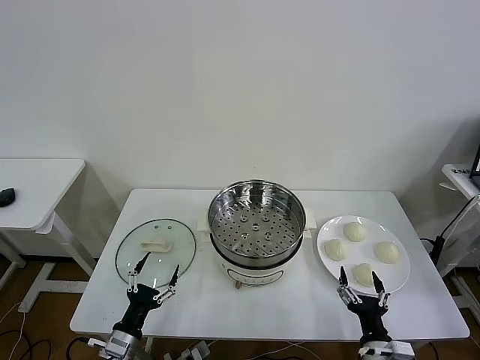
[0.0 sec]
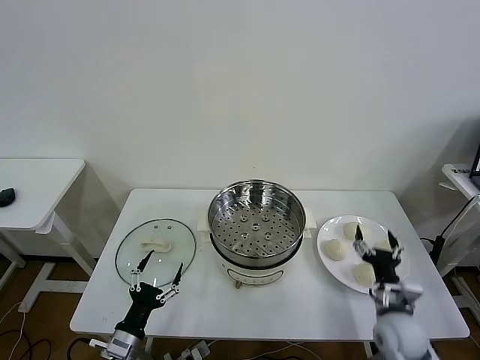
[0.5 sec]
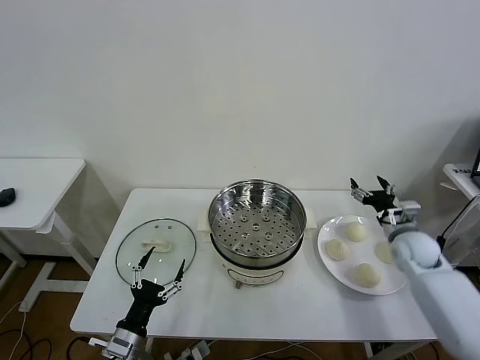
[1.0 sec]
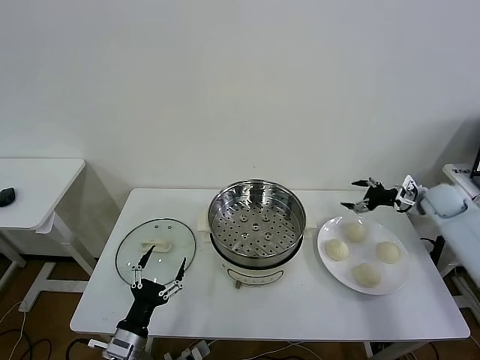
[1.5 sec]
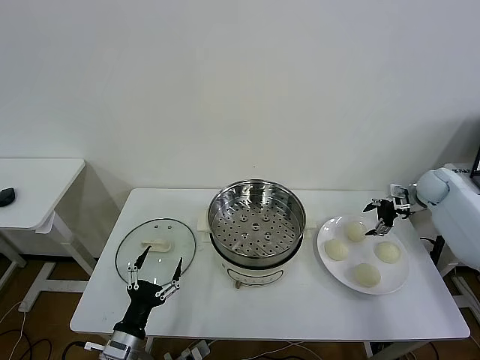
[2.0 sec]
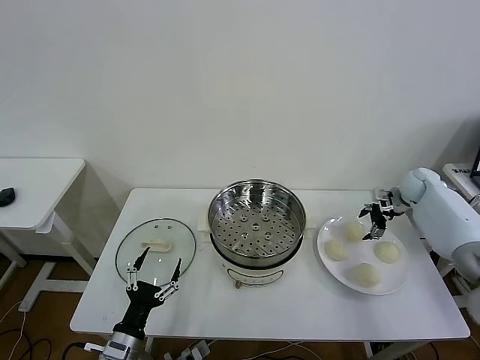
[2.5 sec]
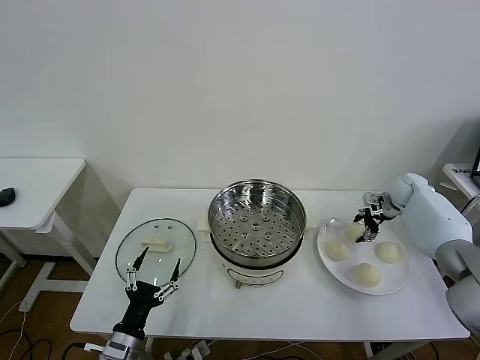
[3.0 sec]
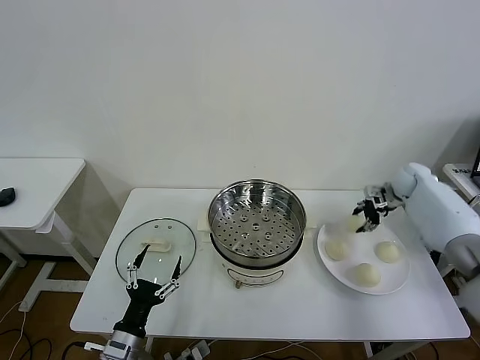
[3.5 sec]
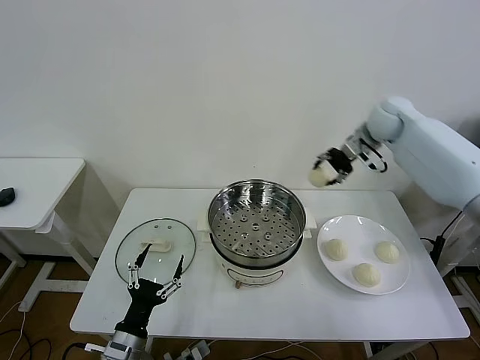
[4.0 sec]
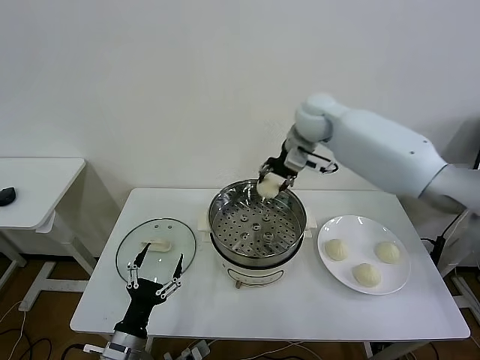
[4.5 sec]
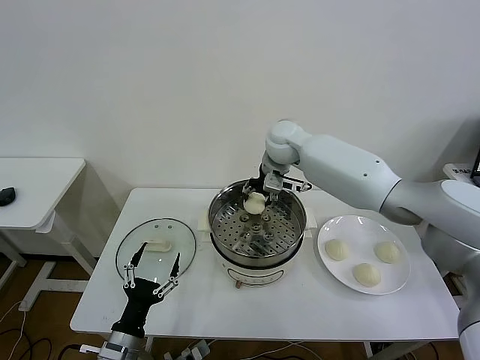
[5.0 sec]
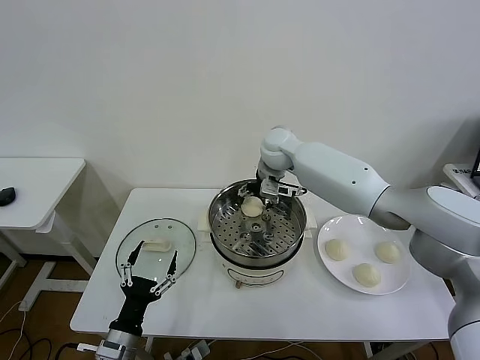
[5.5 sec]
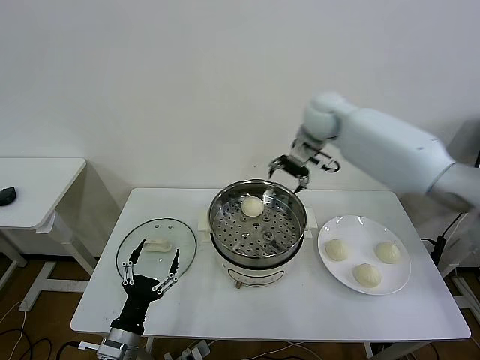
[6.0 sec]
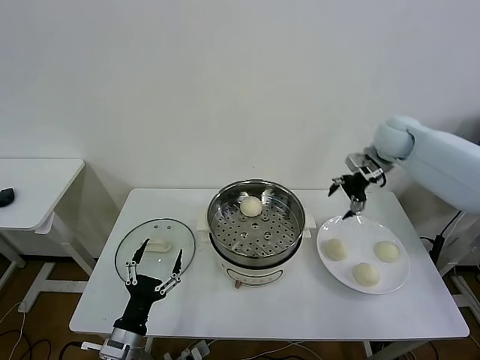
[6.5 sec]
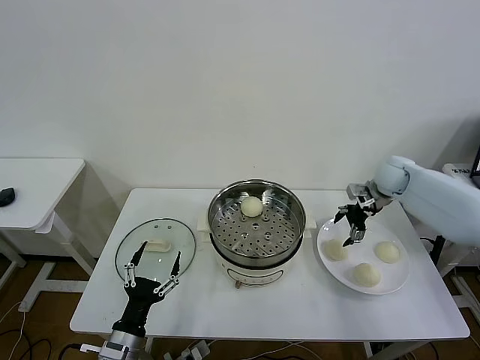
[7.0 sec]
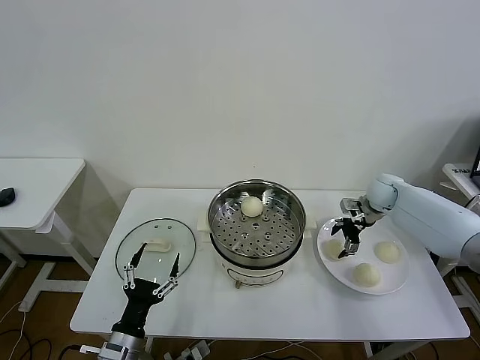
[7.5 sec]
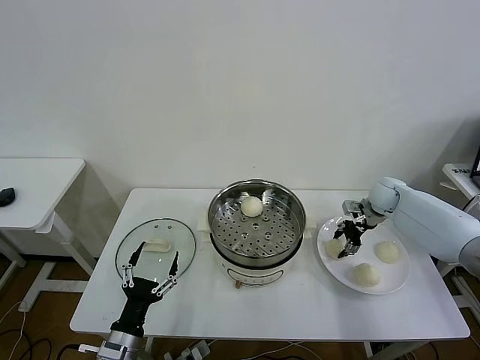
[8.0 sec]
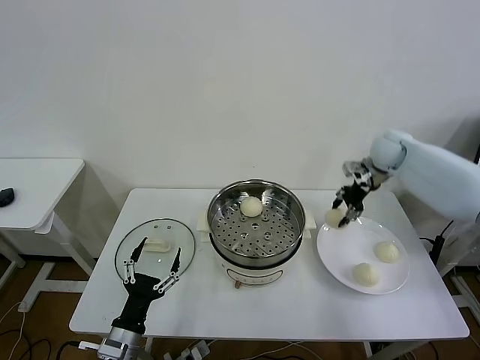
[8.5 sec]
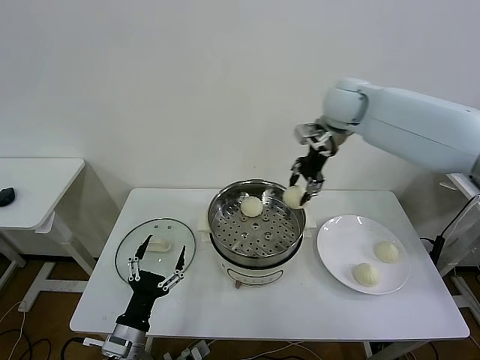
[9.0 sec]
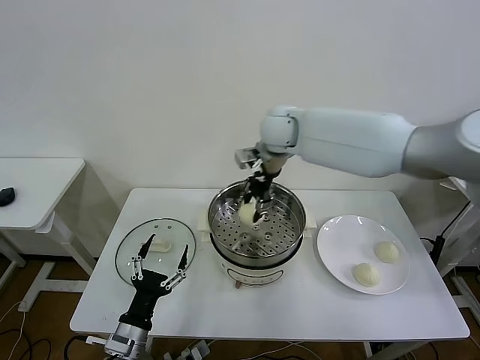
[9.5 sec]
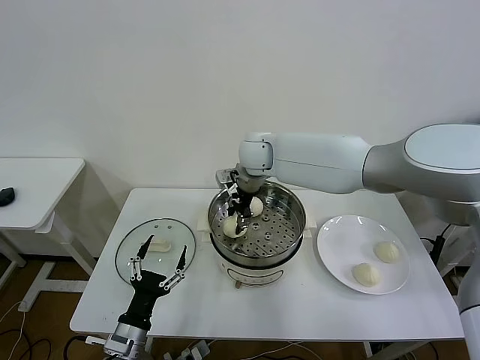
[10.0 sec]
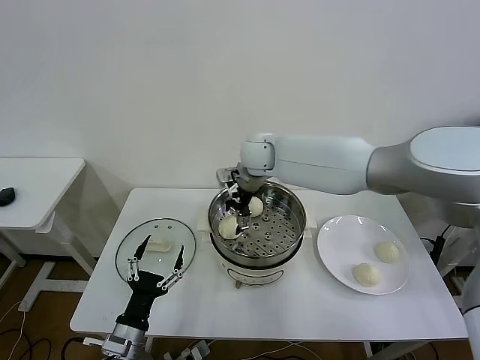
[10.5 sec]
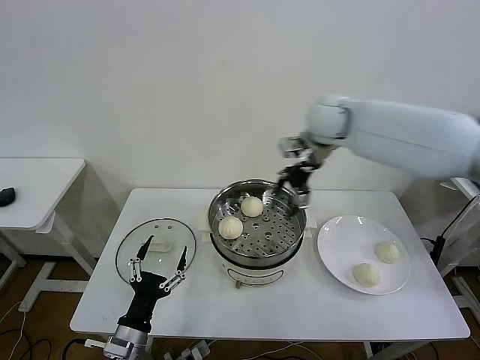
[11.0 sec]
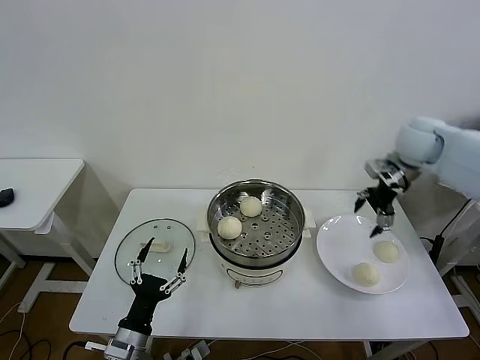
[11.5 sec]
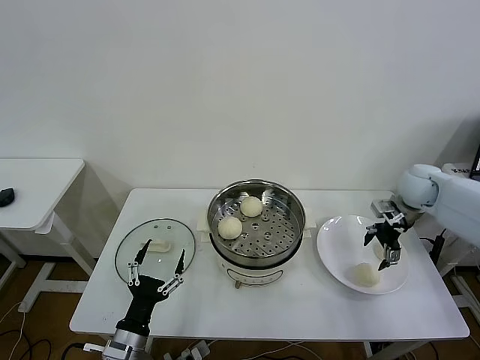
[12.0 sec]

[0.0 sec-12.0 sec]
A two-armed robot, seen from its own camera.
Task of the whole recording: take steamed baozi put them in steamer then cover it.
Step, 0.0 sec to 3.0 sec: Grasp the baozi in the plate with right gripper.
Step, 3.5 sec to 5.5 sec: Place the baozi on the steamer with right gripper.
Step, 6.0 sec to 8.0 sec: Grasp the baozi in the plate with right gripper.
Step, 8.5 sec to 10.0 sec: Place the baozi on the steamer with right gripper.
2.0 sec to 4.0 sec: The right gripper is displaced to the left and upward by about 30 cm, and closes its fingers.
4.0 sec to 6.0 sec: The right gripper goes some 10 cm to the left, and opens.
6.0 sec to 8.0 sec: The right gripper heads downward and to the right, covering some 30 cm, and closes up.
8.0 sec to 10.0 sec: The right gripper goes some 35 cm to the left.
10.0 sec to 12.0 sec: The right gripper heads to the right, covering about 40 cm, and opens up.

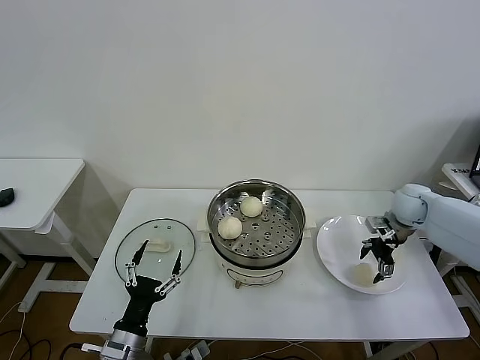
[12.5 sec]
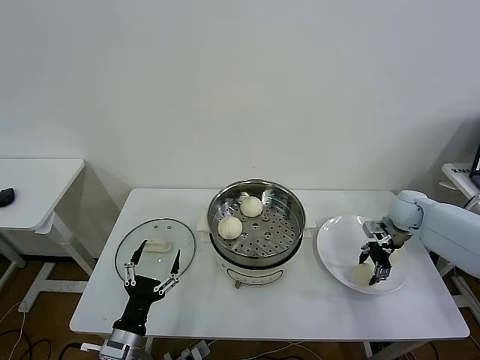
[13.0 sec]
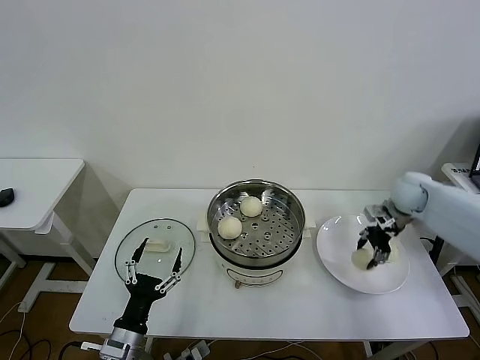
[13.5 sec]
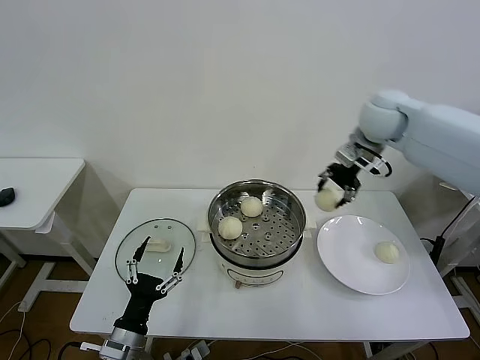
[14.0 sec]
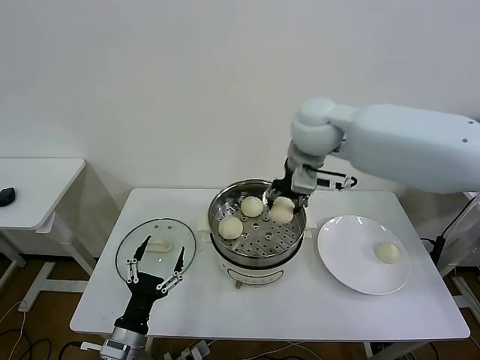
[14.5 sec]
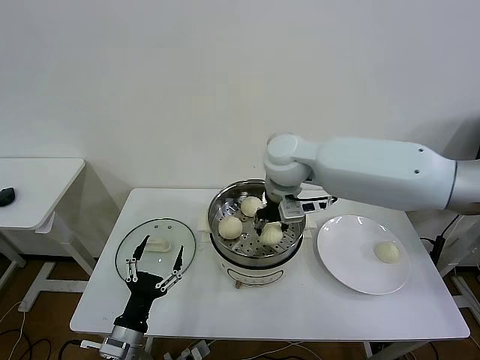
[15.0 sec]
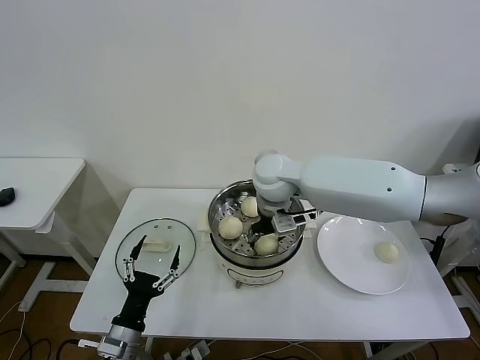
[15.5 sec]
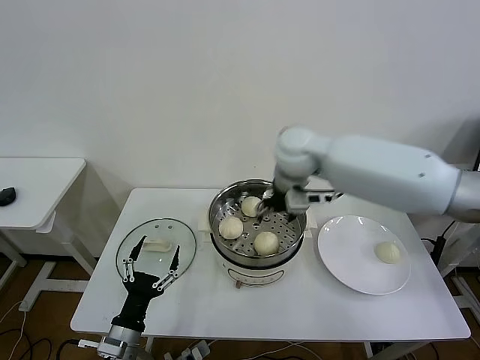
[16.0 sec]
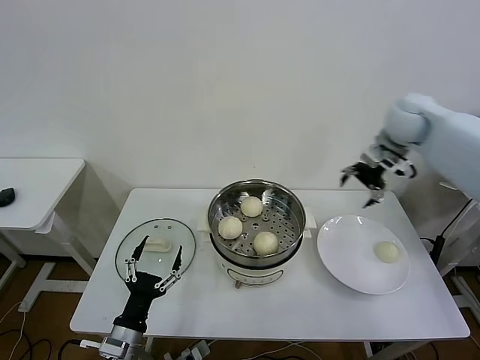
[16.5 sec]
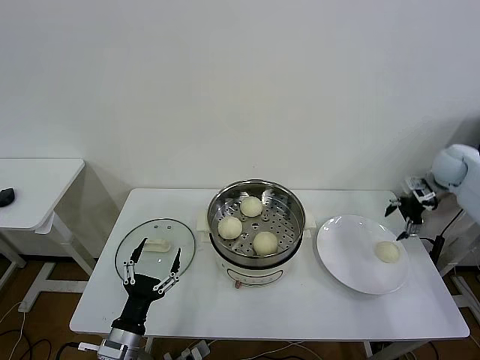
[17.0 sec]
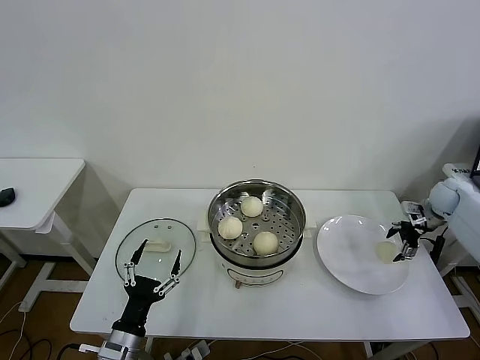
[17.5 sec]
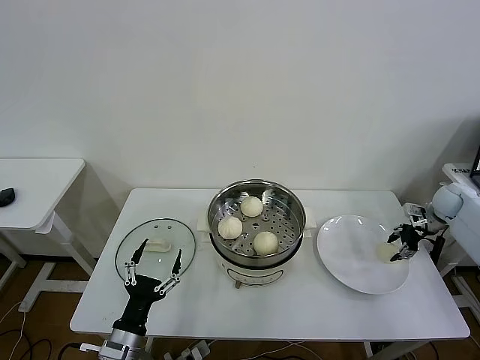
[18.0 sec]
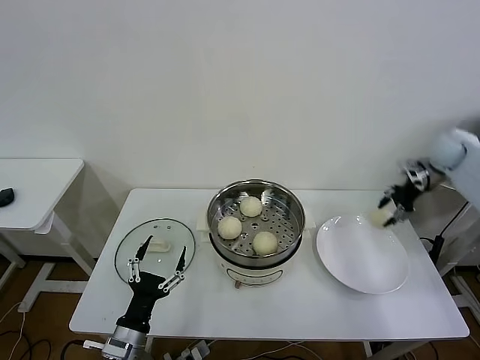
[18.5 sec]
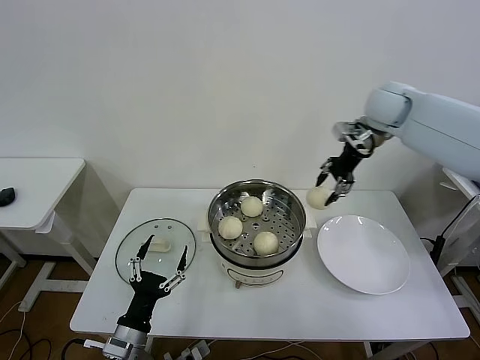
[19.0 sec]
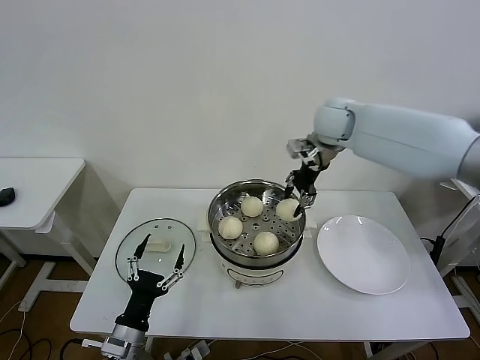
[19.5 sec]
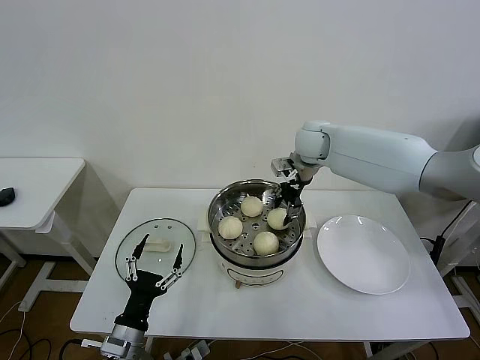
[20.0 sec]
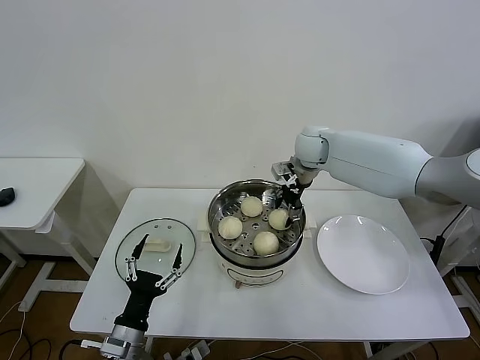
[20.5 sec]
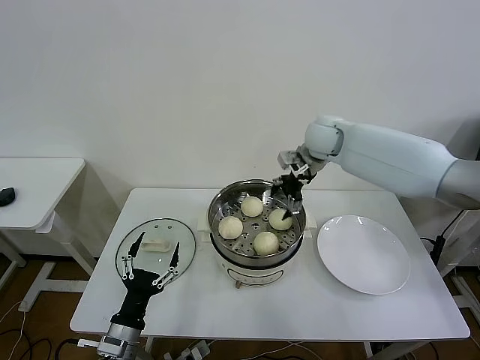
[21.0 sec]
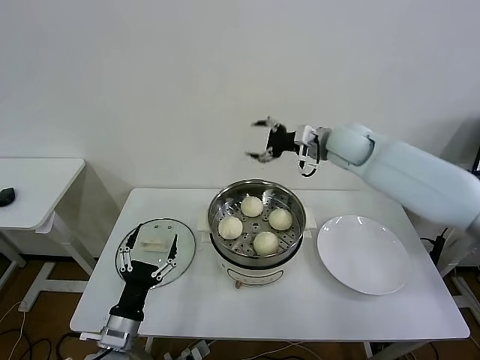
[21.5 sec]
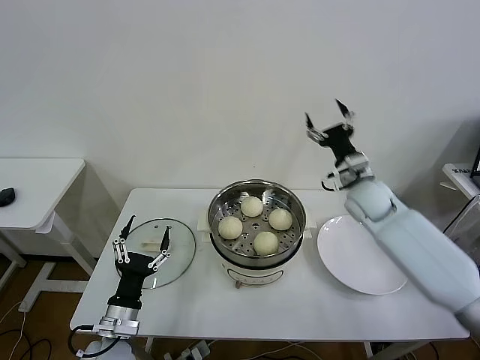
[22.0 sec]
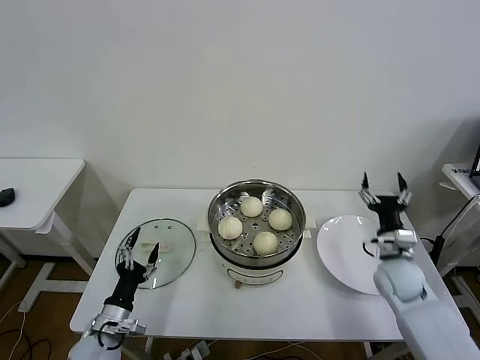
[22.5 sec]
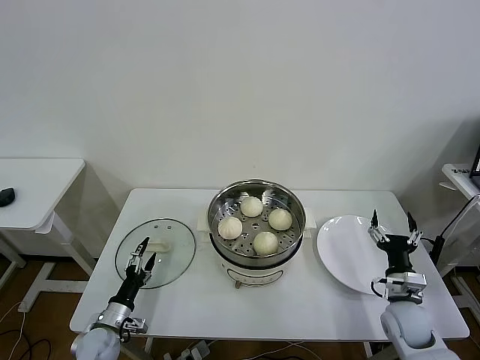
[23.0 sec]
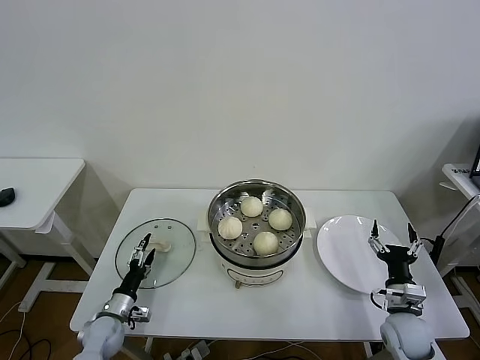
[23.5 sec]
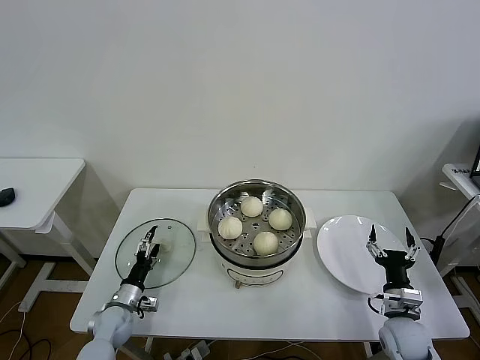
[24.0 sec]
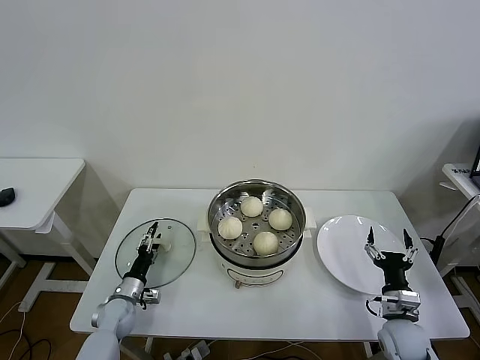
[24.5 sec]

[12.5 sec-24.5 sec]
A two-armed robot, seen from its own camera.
Task of the whole recording: take steamed baozi put them in steamer then cover it.
Step, 13.5 sec to 15.5 sec: Place the baozi on the steamer with right gripper.
Step, 16.0 sec to 18.0 sec: Grasp the baozi in the plate with right gripper.
Step, 18.5 sec to 20.5 sec: Place the baozi on the steamer with right gripper.
12.5 sec to 14.5 sec: The right gripper goes some 35 cm to the left and upward, and closes.
14.5 sec to 16.5 sec: The right gripper is displaced to the right by some 25 cm, and opens.
16.5 sec to 18.5 sec: The right gripper moves to the right and downward, roughly 15 cm, and closes its fingers.
18.5 sec to 20.5 sec: The right gripper travels to the left by approximately 30 cm.
20.5 sec to 22.5 sec: The right gripper travels backward, downward and to the right by some 35 cm, and opens up; the left gripper heads to the left and forward, covering roughly 10 cm.
22.5 sec to 24.5 sec: The right gripper shifts approximately 15 cm backward and downward. Meanwhile the left gripper moves forward and downward, approximately 15 cm.

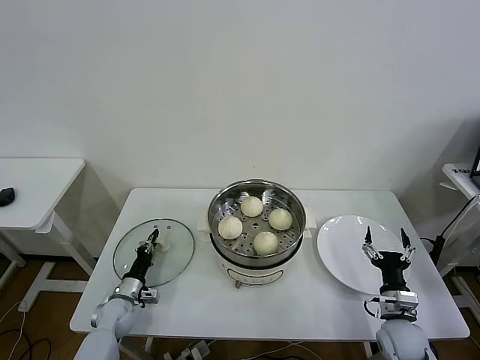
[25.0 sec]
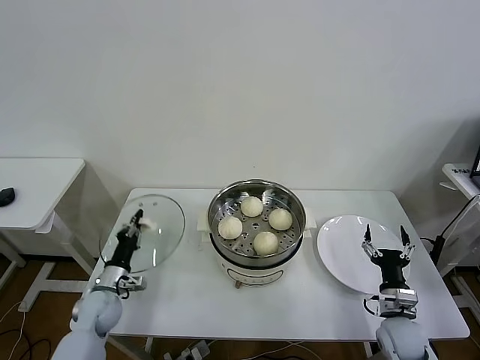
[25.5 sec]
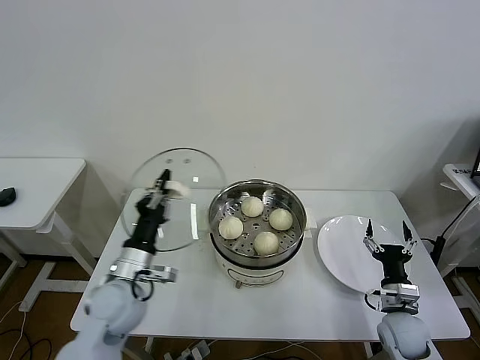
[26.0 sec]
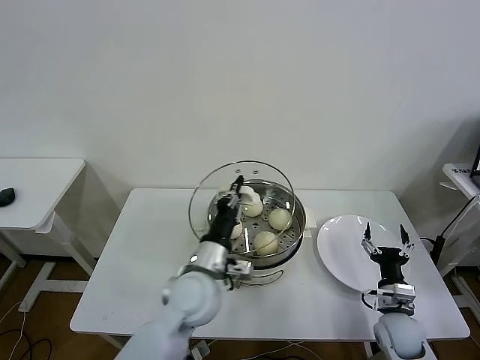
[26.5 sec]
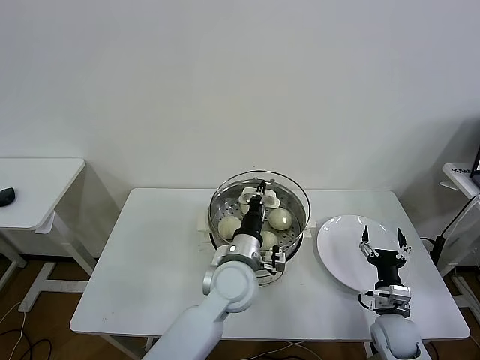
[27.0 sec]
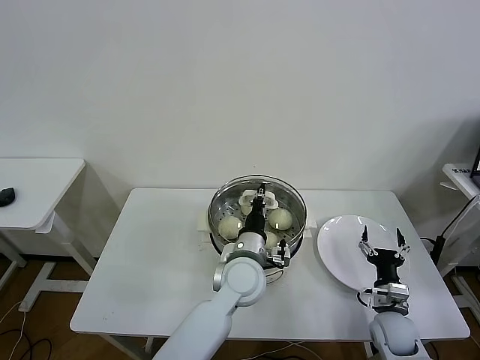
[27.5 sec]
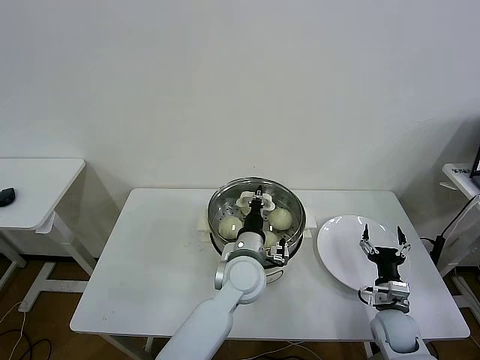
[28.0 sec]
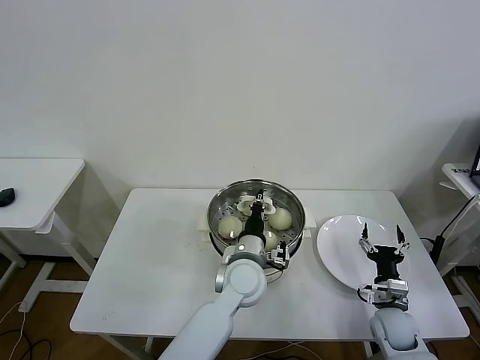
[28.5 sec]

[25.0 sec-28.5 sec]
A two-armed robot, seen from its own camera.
Task of the whole recording: take steamed baozi put them in steamer then cover it.
25.0 sec to 27.0 sec: The left gripper moves to the right and upward, some 40 cm.
27.0 sec to 28.5 sec: The grippers stay close to where they were, moving slightly.
